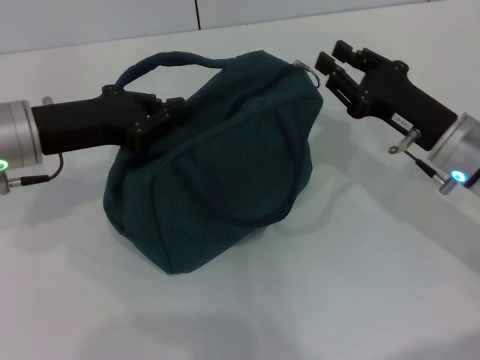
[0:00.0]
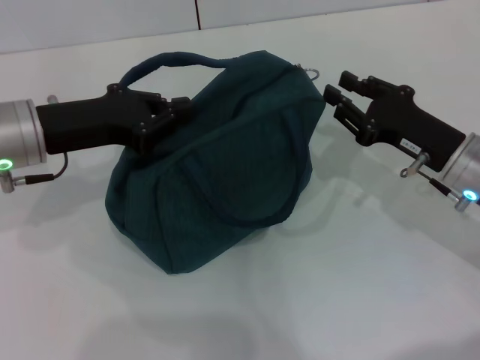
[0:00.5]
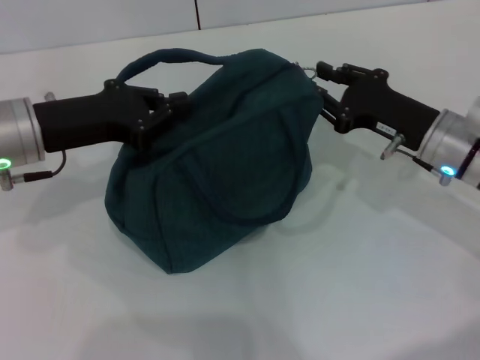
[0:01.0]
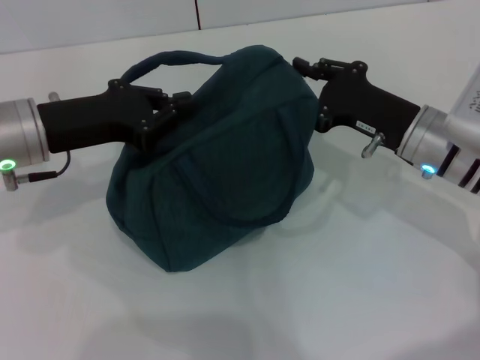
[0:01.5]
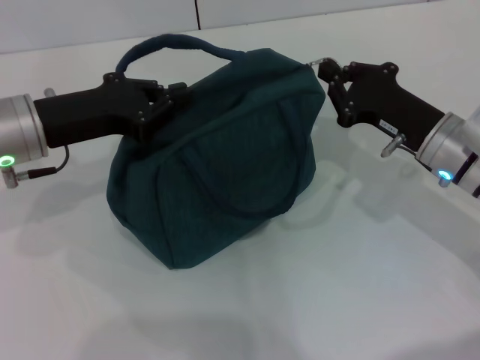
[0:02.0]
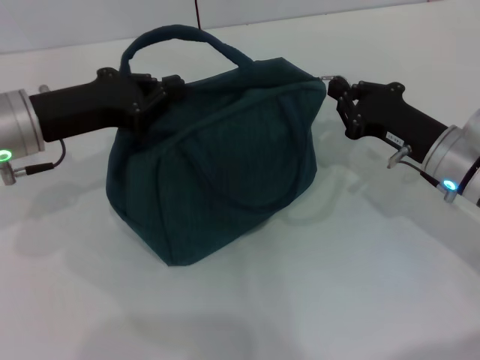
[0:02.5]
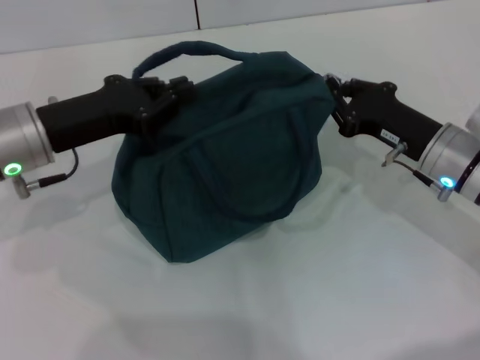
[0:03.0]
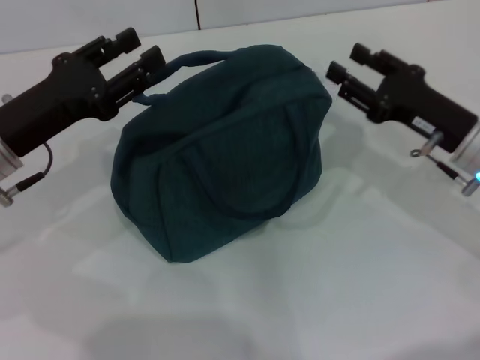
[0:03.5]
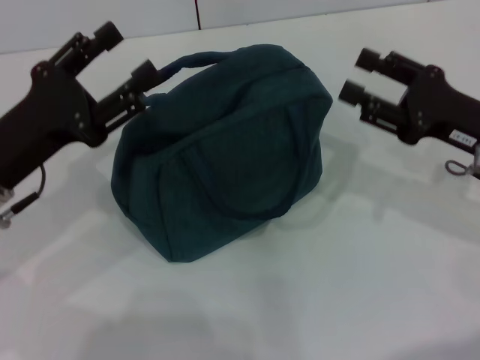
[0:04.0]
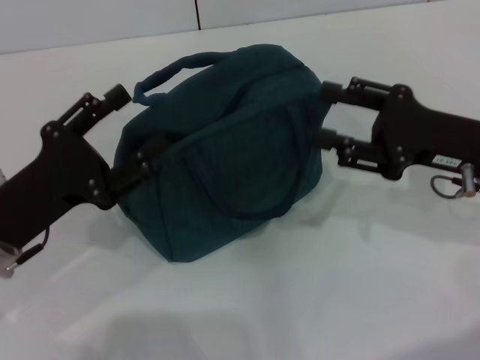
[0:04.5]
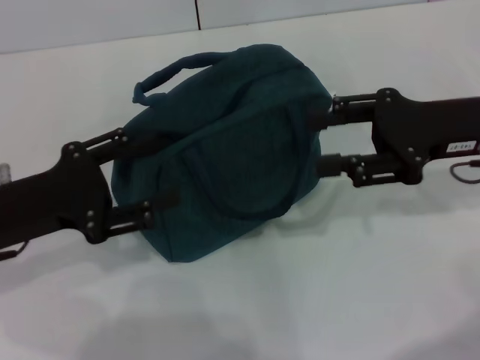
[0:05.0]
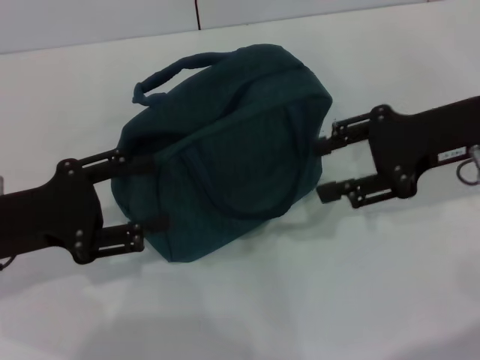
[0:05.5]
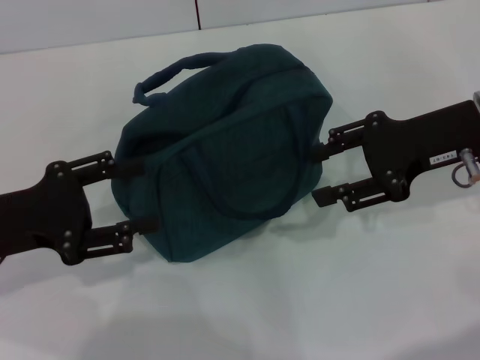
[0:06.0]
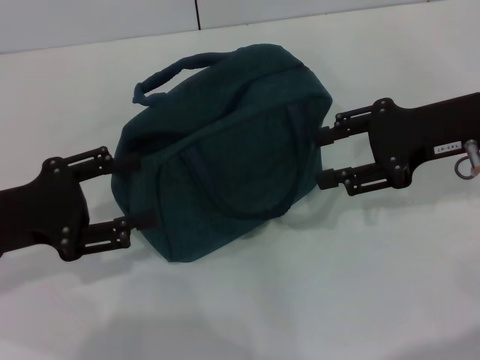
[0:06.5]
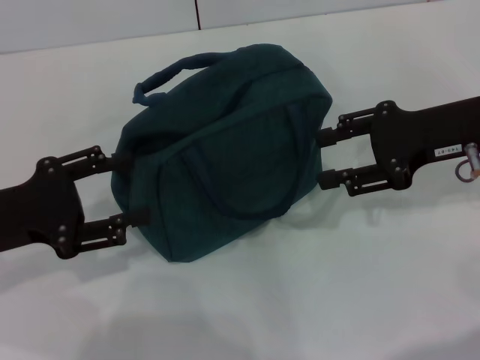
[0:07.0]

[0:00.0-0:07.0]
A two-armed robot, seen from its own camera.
Step, 0:00.0 to 0:03.0: Hold the lunch bag with your left hand.
0:00.0 to 0:02.0: There are only small adjustments of the grippers.
0:02.0 to 0:03.5: The right gripper opens its fingers.
0:03.5 to 0:05.0: The right gripper goes about 10 cm upward, while the left gripper ends up approximately 5 cm from where it was, and opens.
